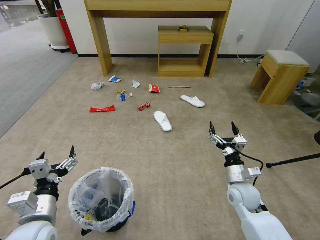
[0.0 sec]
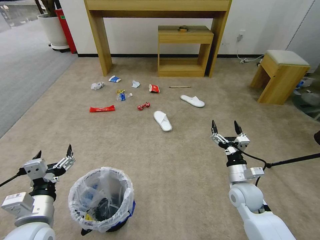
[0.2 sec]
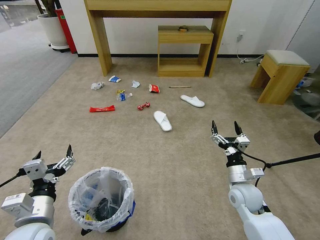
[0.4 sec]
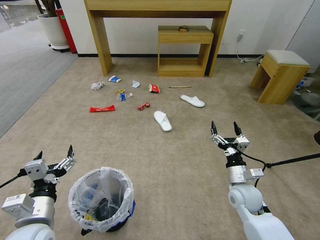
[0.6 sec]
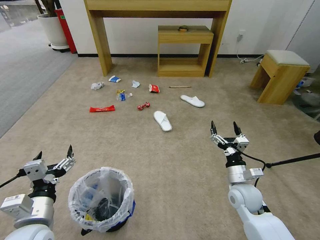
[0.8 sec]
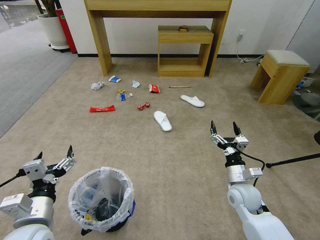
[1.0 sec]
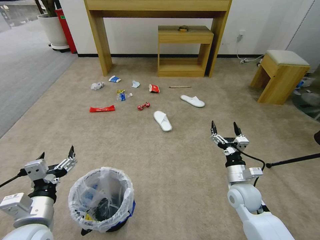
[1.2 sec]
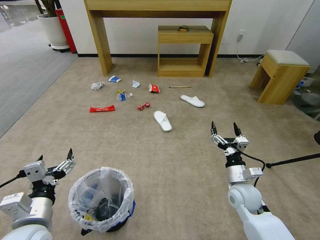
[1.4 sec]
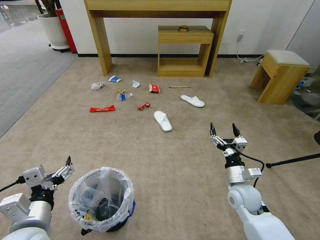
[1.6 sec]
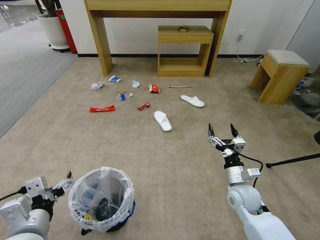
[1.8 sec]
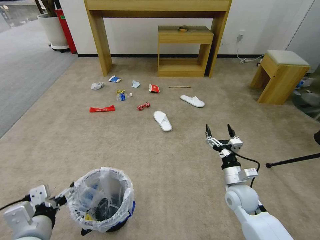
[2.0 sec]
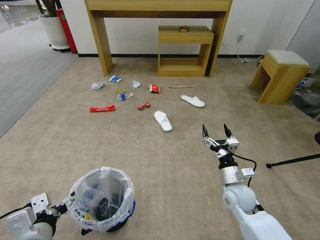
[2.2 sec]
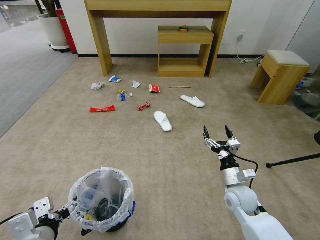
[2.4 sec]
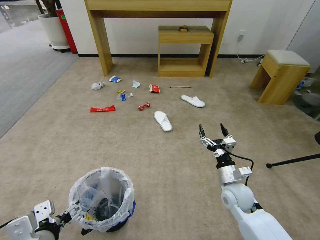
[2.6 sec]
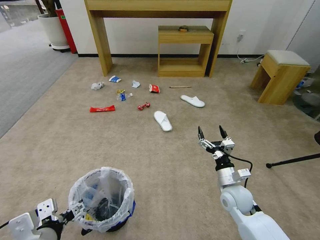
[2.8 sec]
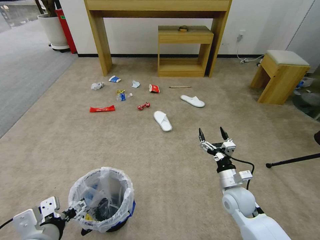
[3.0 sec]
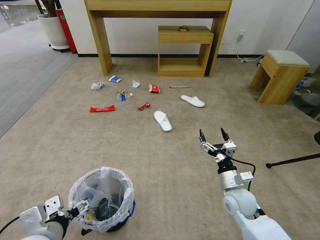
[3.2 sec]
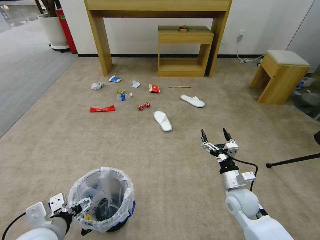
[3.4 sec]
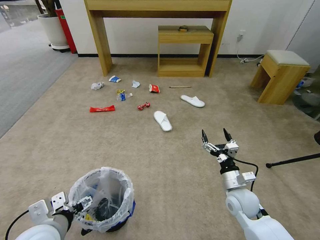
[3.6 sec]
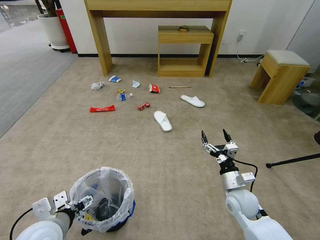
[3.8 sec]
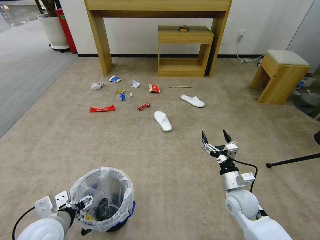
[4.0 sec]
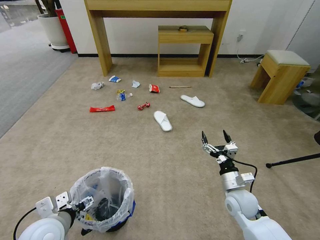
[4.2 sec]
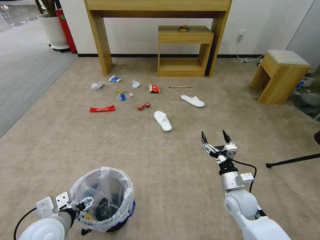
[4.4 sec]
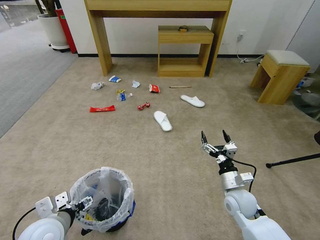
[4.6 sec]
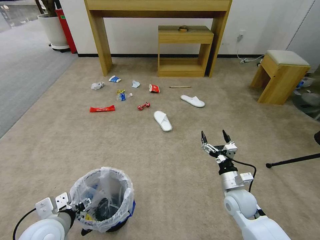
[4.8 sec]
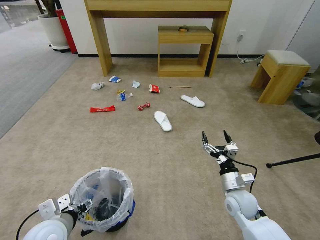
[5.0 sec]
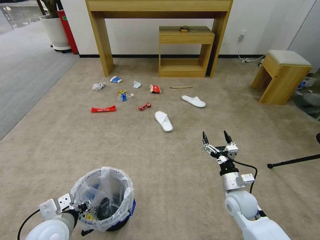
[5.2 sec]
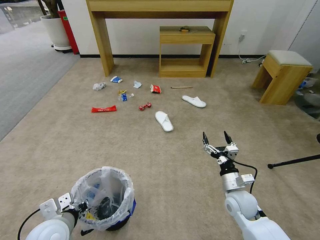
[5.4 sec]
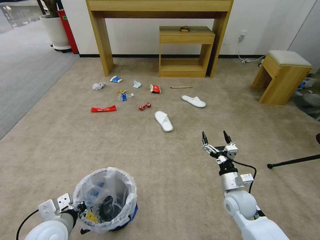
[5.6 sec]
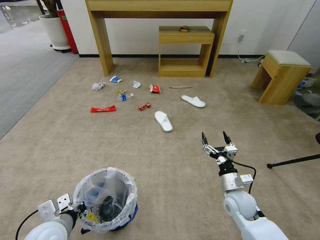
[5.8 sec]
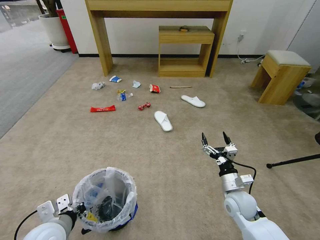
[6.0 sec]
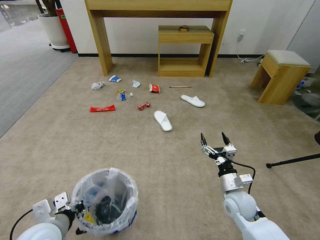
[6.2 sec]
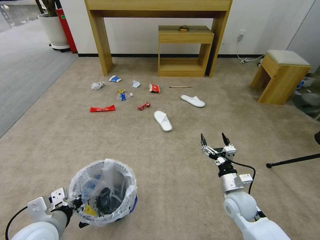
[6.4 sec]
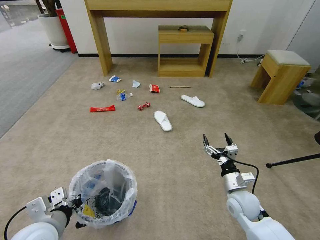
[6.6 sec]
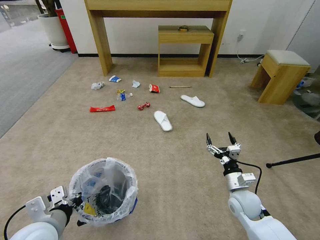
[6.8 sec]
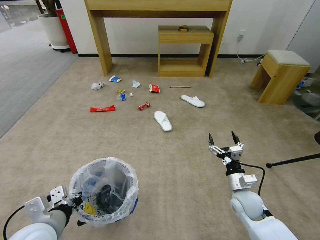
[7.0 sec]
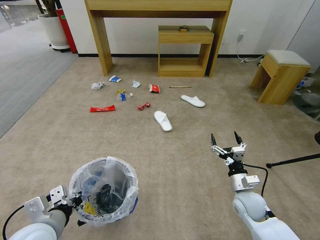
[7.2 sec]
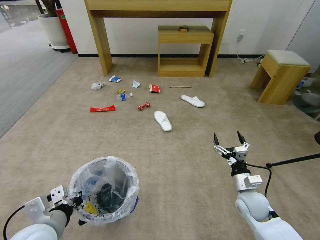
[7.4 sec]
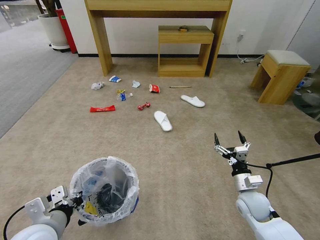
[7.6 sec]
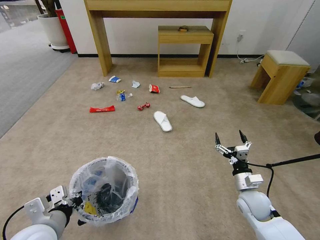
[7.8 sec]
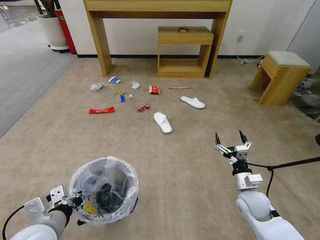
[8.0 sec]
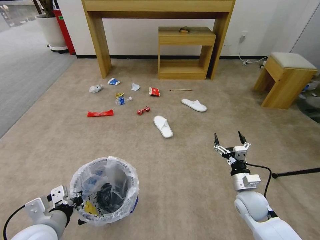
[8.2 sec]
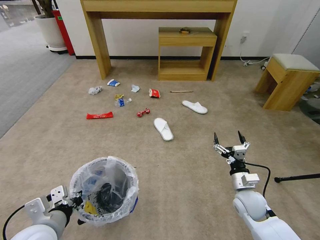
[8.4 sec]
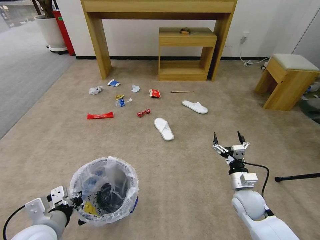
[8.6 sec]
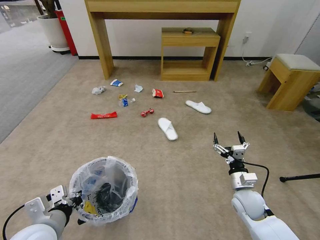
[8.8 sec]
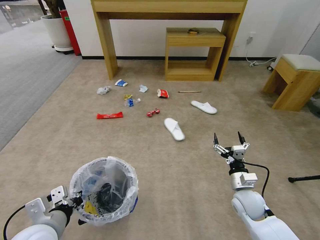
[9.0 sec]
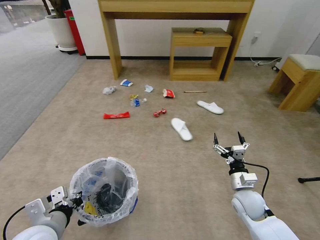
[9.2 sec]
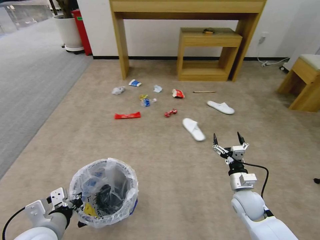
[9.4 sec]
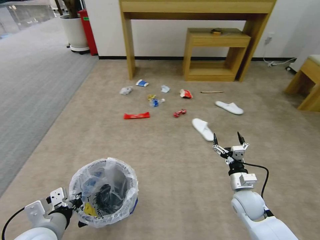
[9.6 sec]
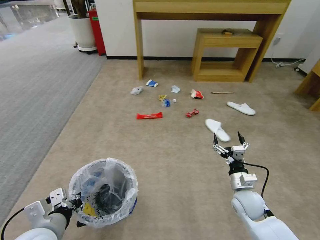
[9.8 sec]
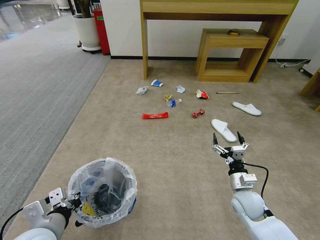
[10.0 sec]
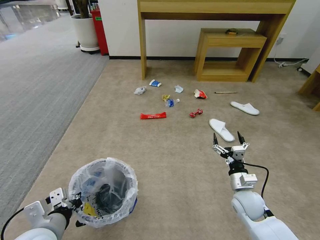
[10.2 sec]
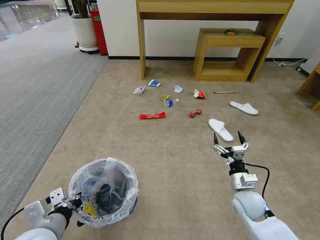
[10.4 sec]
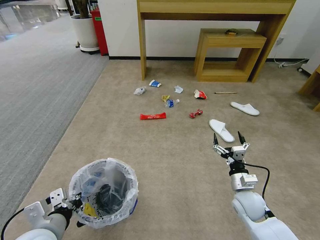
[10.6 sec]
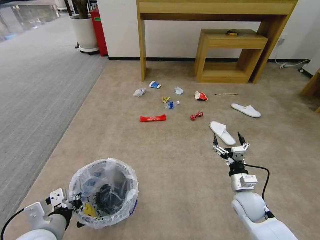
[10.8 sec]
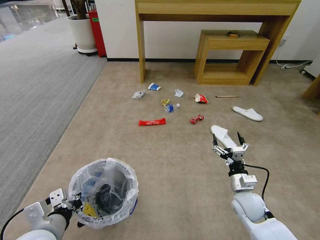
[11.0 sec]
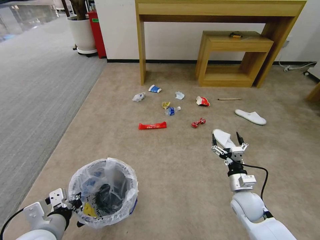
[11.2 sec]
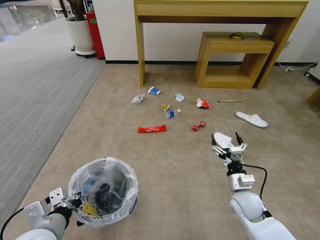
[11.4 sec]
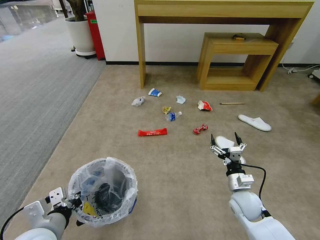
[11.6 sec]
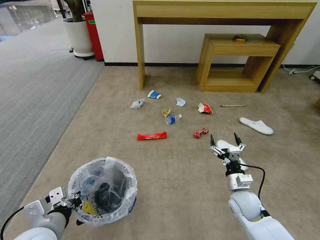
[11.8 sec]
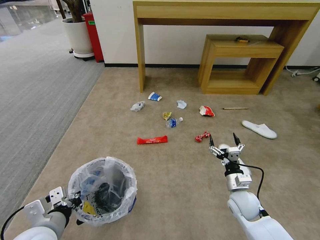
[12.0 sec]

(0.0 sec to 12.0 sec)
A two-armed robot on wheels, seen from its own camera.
Task of the whole recording: Pick up the trash bin and place the garbage on the floor into it.
3.0 sec - 4.4 sec: The left gripper travels downward and forward by some 10 cm.
4.4 sec - 6.0 sec: The left gripper closes.
6.0 sec - 7.6 sec: The left gripper heads upward, covering roughly 5 cm.
7.6 sec - 9.0 sec: The grippers move only a little.

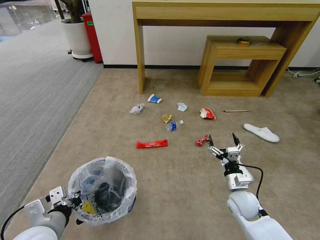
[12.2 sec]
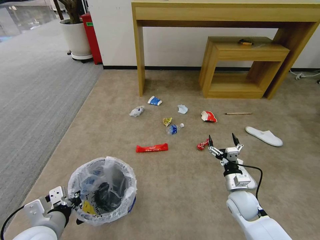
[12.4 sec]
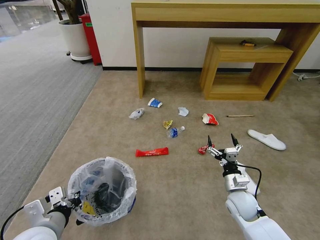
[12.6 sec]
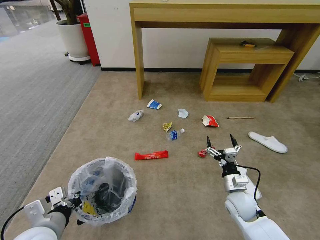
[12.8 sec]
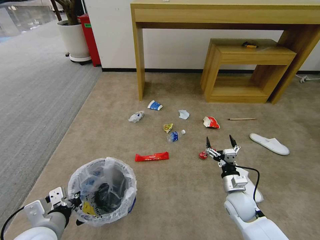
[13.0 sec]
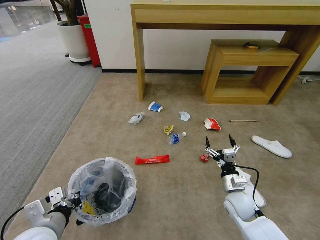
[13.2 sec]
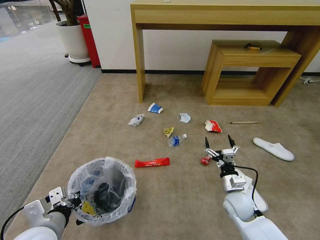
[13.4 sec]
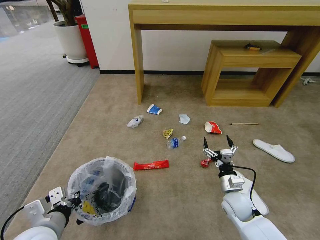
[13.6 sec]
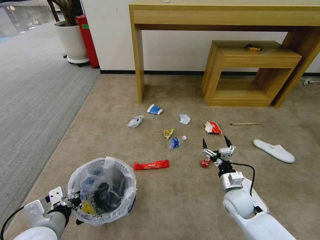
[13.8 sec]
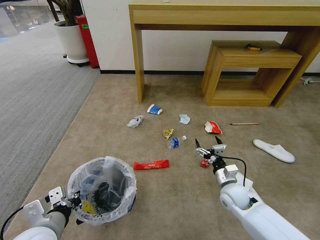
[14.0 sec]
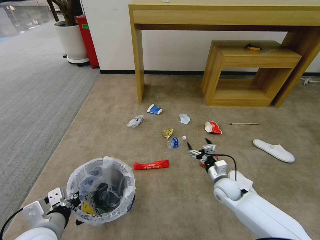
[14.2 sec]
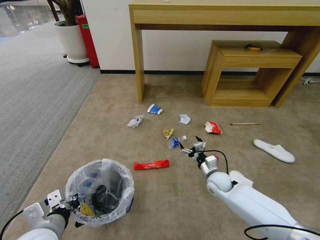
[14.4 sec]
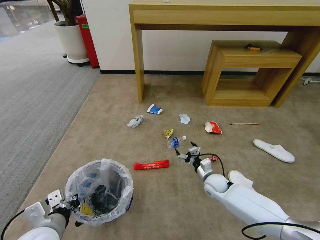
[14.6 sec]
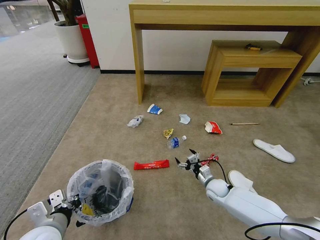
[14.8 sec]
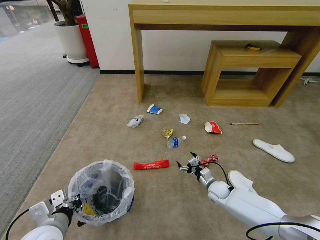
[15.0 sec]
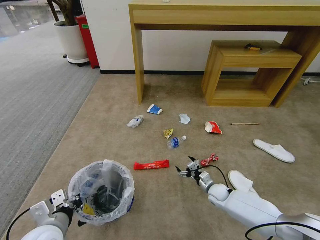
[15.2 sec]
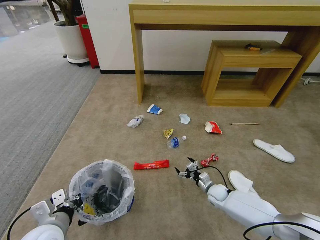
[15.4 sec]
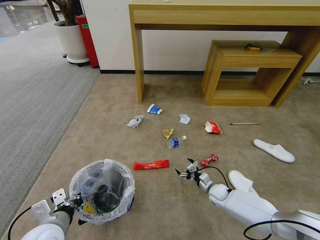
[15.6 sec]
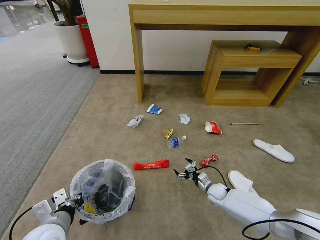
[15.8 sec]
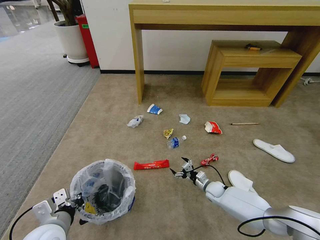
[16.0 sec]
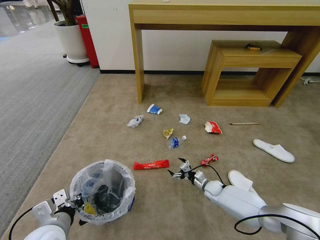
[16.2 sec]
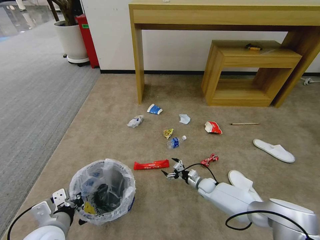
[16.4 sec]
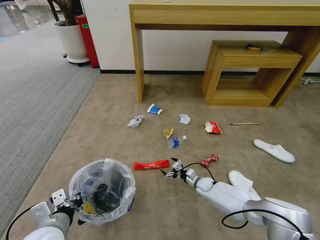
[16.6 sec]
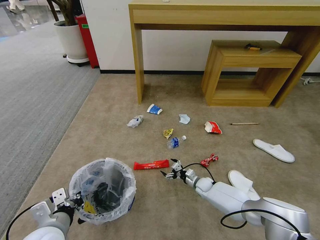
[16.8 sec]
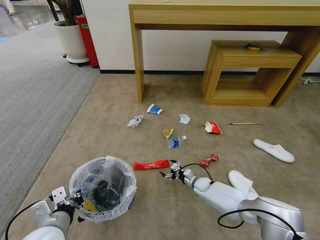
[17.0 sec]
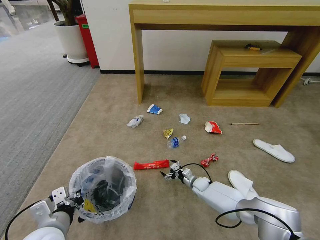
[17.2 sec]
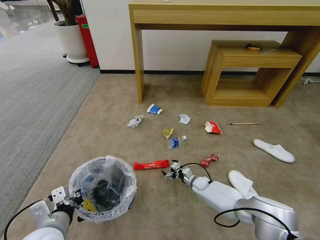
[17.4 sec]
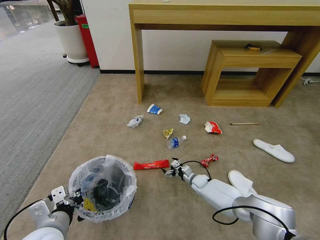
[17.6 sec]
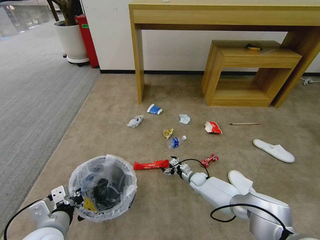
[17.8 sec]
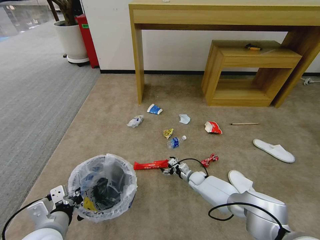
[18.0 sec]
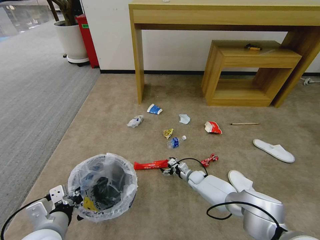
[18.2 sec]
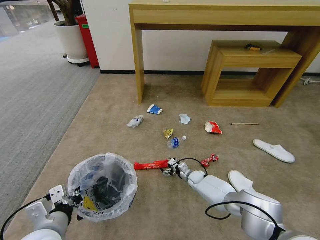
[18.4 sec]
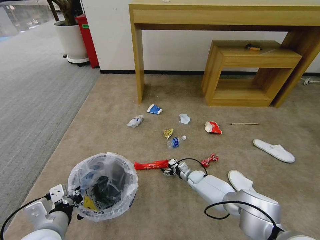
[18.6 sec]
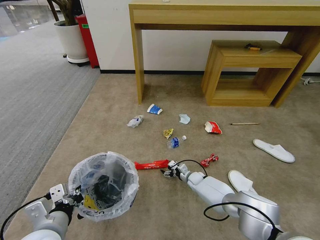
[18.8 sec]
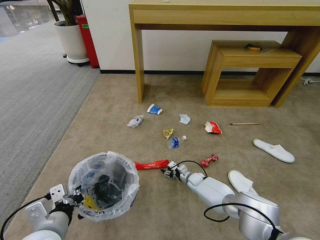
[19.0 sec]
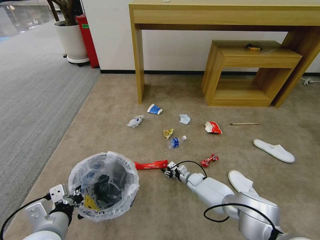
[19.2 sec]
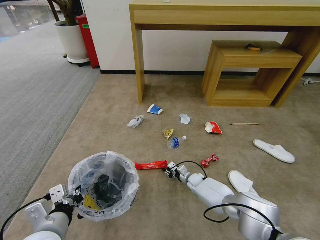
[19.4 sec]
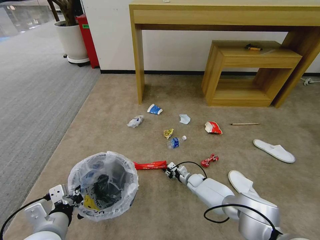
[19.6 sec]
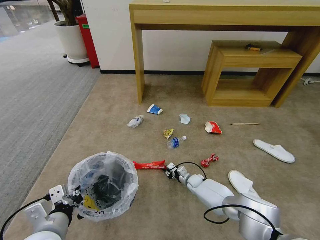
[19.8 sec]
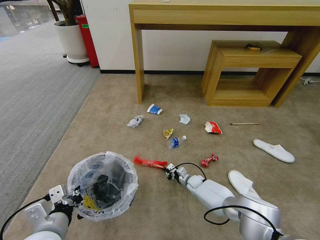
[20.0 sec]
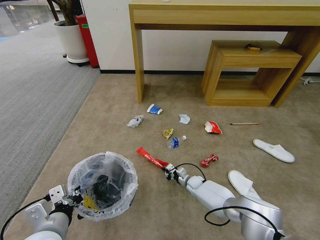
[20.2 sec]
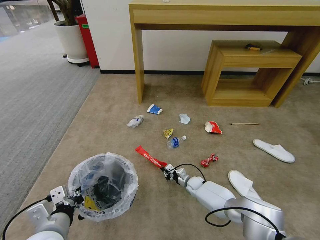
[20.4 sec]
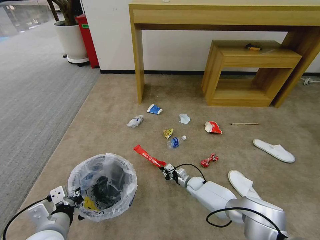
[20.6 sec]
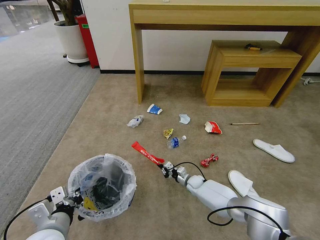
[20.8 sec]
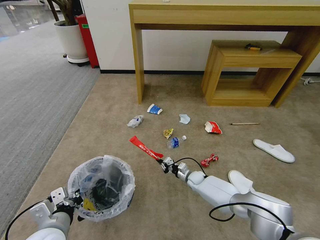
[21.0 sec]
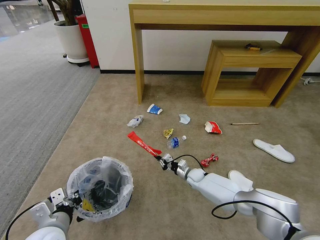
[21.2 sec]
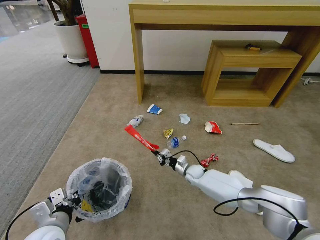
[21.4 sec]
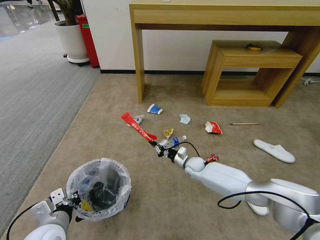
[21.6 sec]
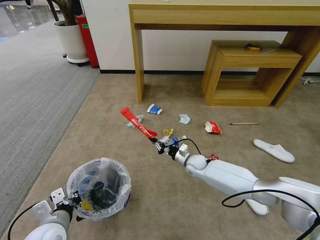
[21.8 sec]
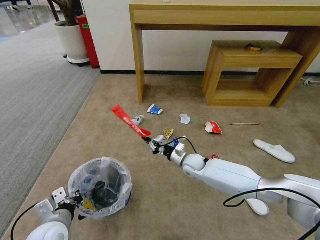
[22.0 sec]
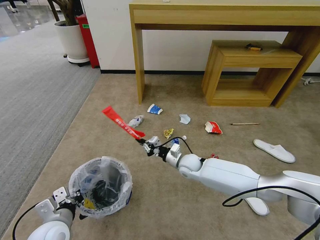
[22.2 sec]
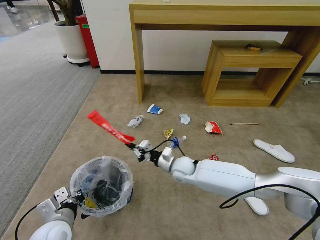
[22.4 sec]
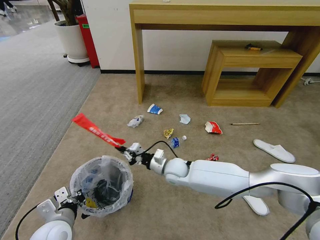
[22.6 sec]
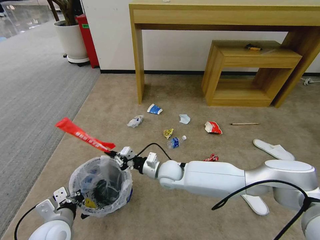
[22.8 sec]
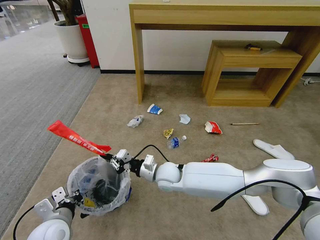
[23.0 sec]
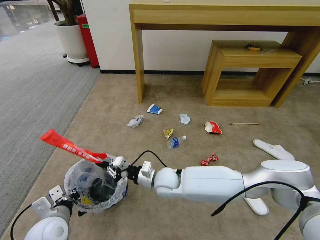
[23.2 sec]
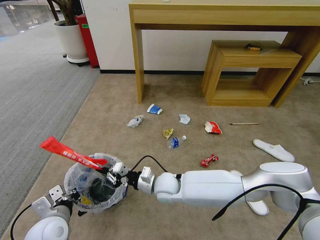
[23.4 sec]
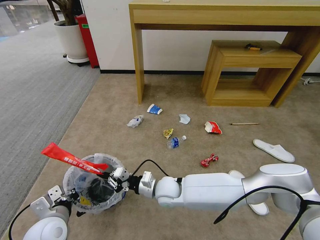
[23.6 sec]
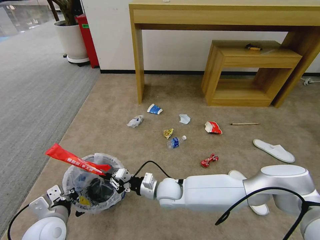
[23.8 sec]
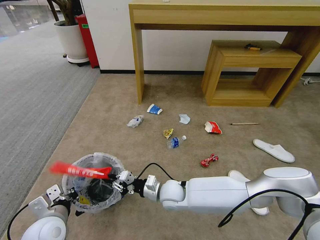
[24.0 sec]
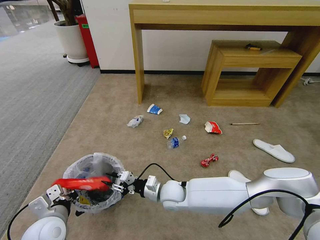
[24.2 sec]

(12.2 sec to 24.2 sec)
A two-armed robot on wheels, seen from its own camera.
Task of the whole recording: Pick up the trash bin and place the garbage on the floor into it.
13.8 sec - 15.2 sec: The right gripper heads downward and forward, covering some 15 cm.
15.2 sec - 16.6 sec: The right gripper shifts approximately 5 cm forward.
16.6 sec - 18.2 sec: There are only small adjustments of the grippers.
18.2 sec - 19.8 sec: The right gripper closes up.
19.8 sec - 21.2 sec: The grippers stay close to where they were, moving slightly.
21.2 sec - 22.6 sec: The right gripper shifts roughly 20 cm upward and to the left.
22.6 sec - 24.2 sec: The right gripper moves backward, about 10 cm, and opens up.
